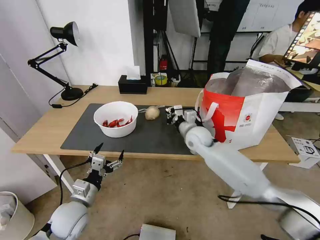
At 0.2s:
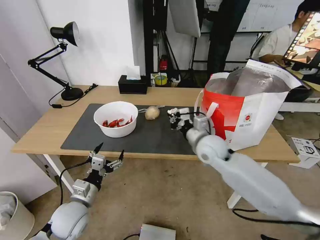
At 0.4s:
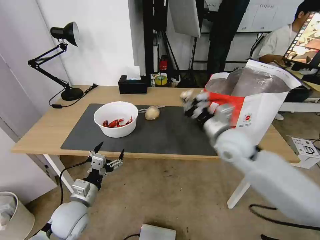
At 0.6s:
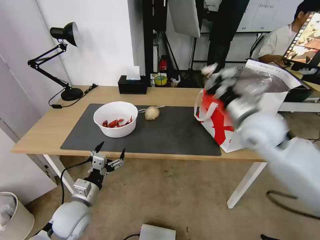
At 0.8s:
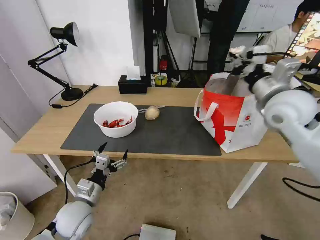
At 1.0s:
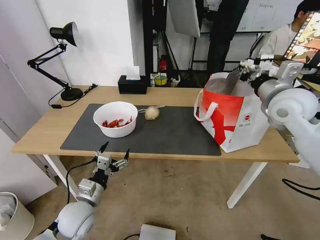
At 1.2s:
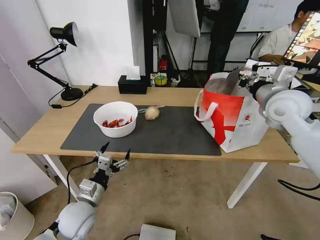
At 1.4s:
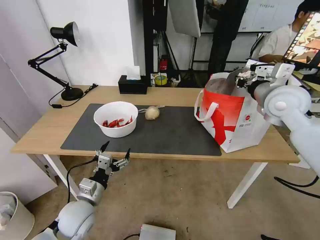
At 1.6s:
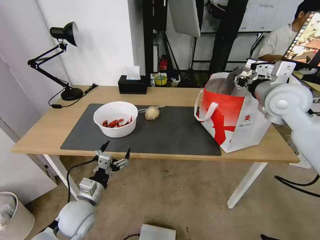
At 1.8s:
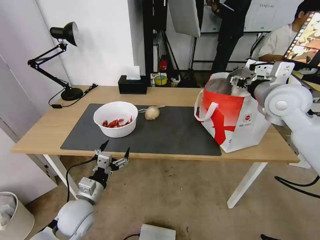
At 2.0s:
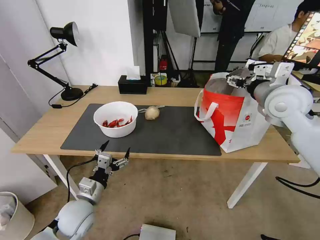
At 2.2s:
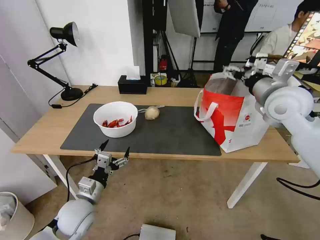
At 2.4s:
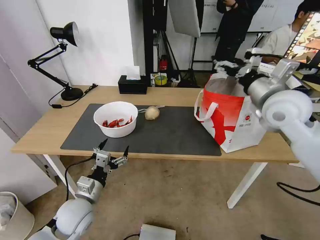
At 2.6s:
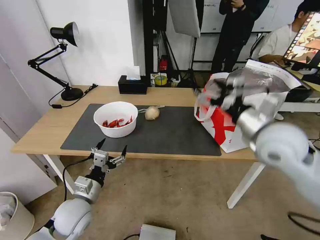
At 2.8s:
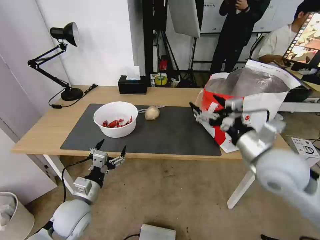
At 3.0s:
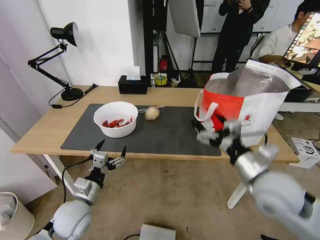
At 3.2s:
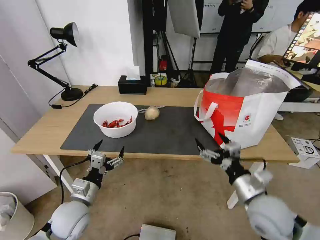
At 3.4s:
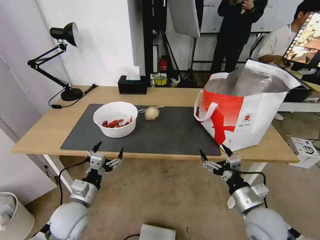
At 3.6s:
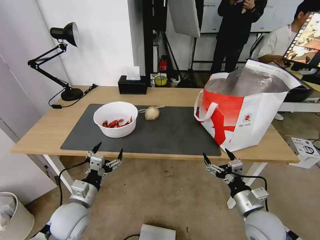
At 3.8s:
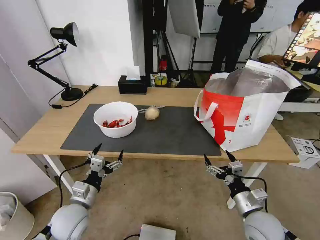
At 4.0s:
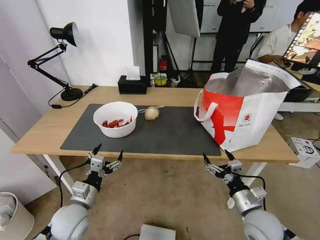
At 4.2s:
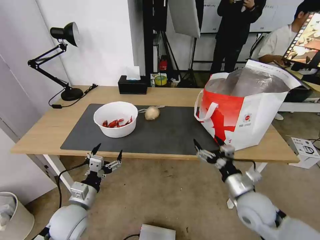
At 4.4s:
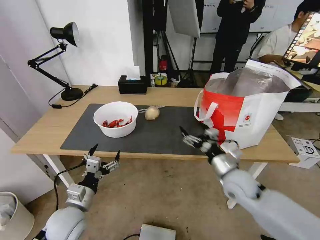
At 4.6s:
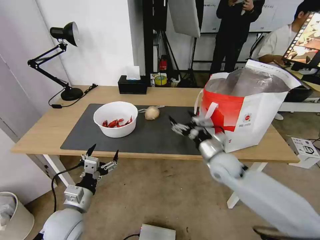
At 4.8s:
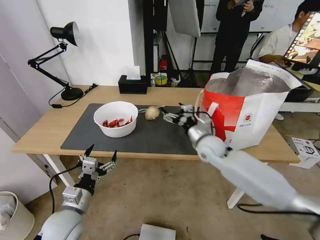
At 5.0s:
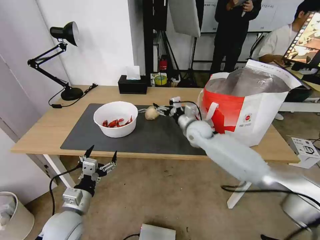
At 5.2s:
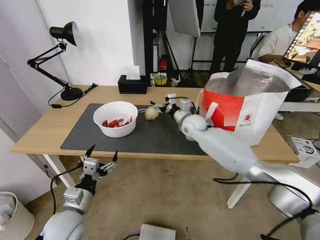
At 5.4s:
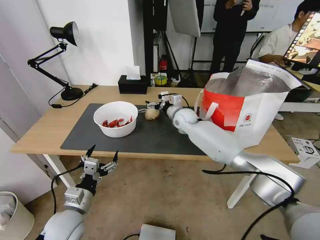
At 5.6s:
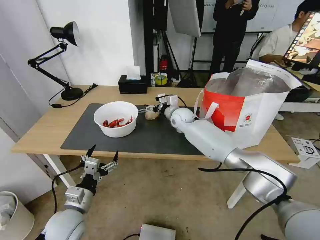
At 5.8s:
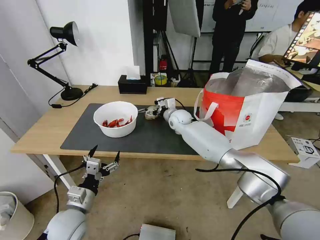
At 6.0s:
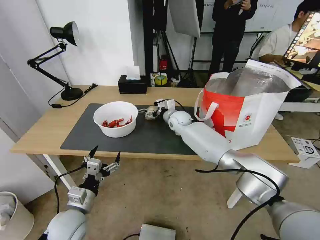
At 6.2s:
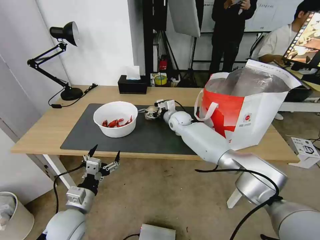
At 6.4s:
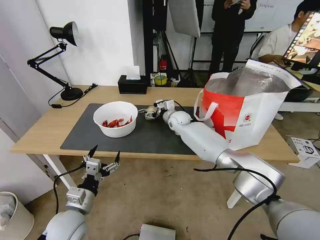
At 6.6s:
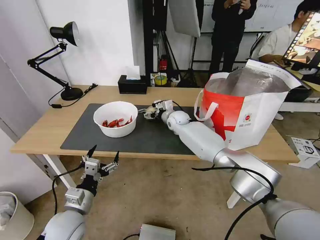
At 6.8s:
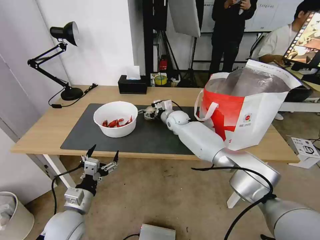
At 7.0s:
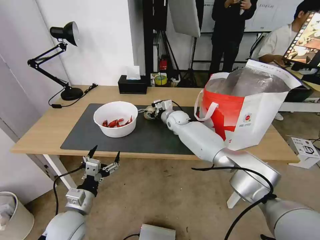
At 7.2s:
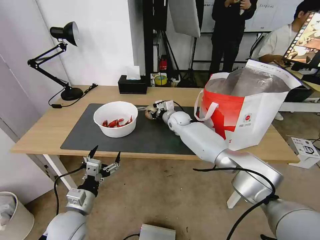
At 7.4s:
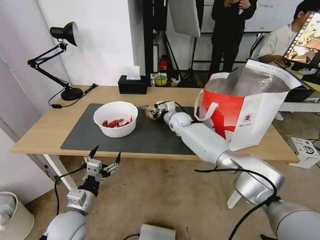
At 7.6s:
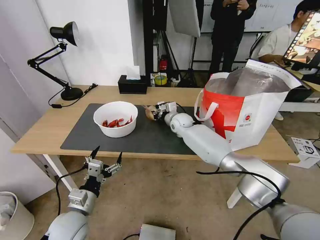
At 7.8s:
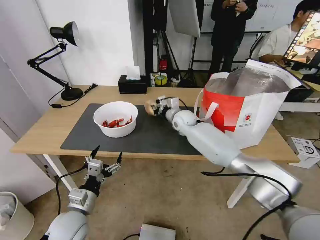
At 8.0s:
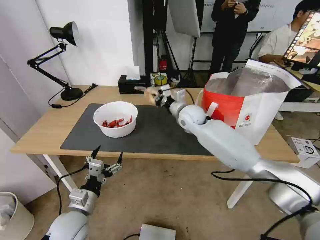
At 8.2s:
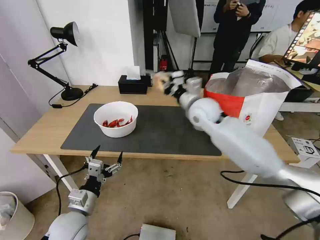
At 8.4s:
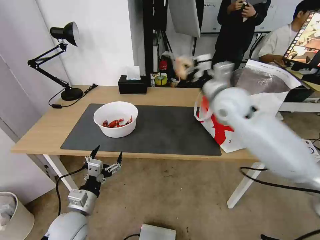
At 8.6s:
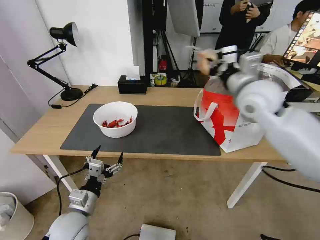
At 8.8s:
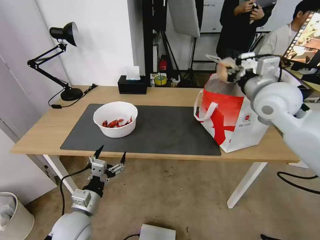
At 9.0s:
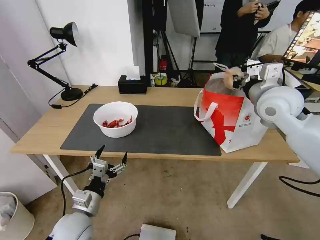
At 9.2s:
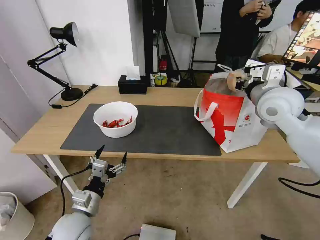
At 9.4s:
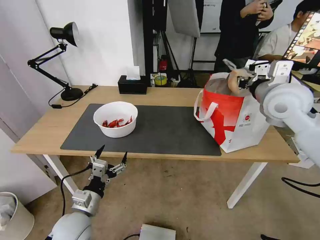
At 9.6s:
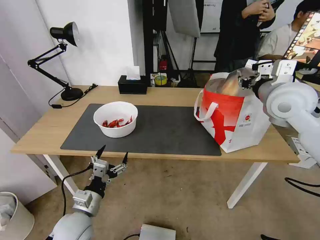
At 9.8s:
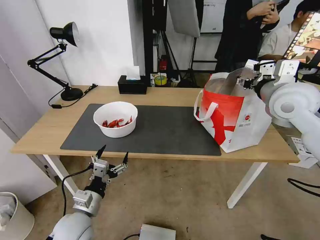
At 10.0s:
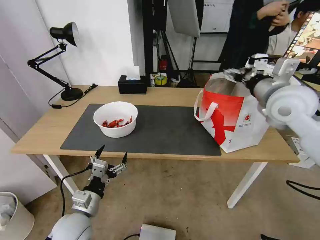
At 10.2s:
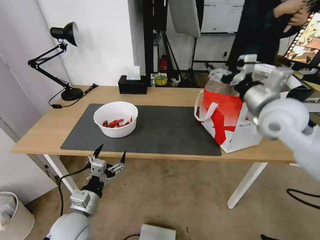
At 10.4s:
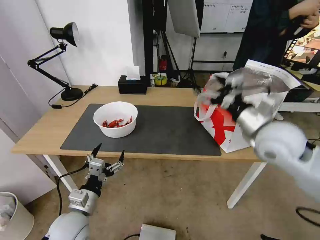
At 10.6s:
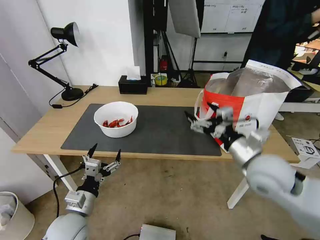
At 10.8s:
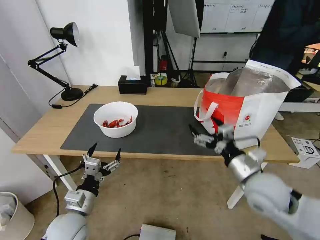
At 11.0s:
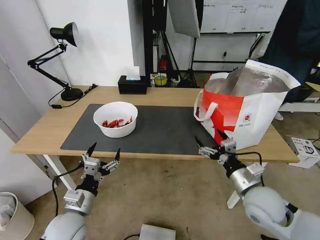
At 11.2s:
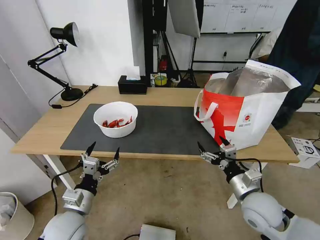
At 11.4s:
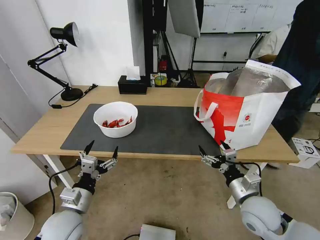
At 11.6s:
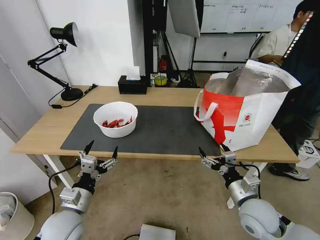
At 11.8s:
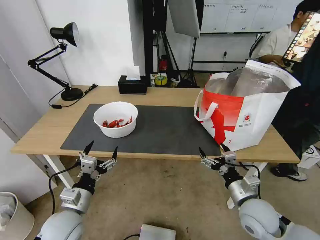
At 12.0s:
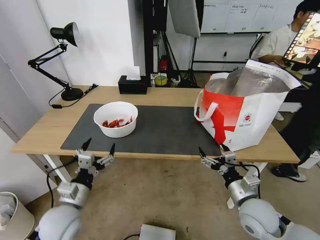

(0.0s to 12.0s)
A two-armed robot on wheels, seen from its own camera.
Task of the whole recording: Pick up the trash from the table and place it into the takeout bag.
0.0s - 1.6s: The right gripper moves upward and to the right, roughly 25 cm, and opens its fingers.
1.6s - 3.0s: The right gripper is displaced backward and downward by about 25 cm, and opens its fingers.
3.0s - 4.4s: The right gripper travels downward and forward by approximately 10 cm.
4.4s - 6.0s: The right gripper travels forward and to the left by roughly 35 cm.
6.0s - 7.6s: The right gripper closes its fingers.
7.6s - 9.0s: The right gripper travels upward, to the right and backward by approximately 35 cm.
9.0s - 10.4s: The right gripper goes some 10 cm backward, and opens up.
10.4s - 12.0s: The right gripper shifts some 25 cm downward and backward.

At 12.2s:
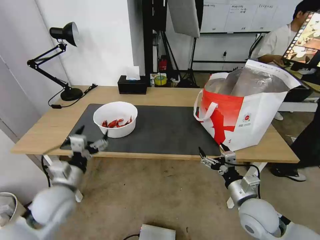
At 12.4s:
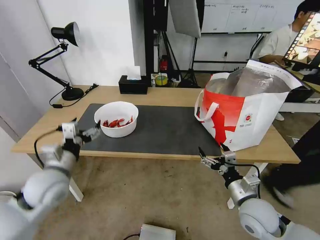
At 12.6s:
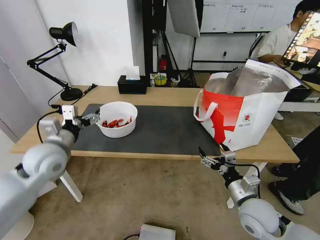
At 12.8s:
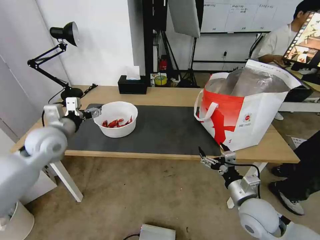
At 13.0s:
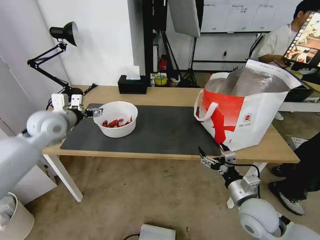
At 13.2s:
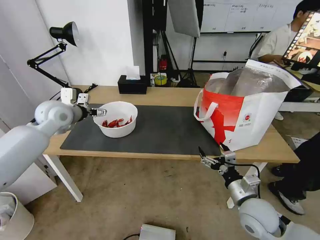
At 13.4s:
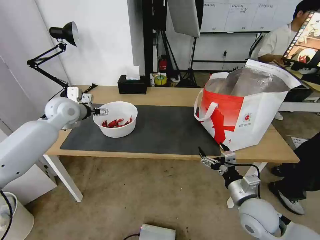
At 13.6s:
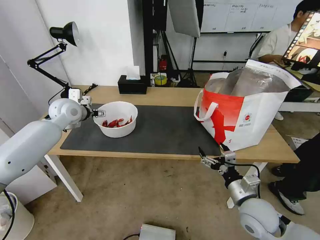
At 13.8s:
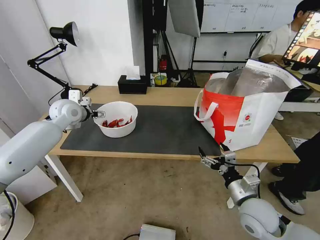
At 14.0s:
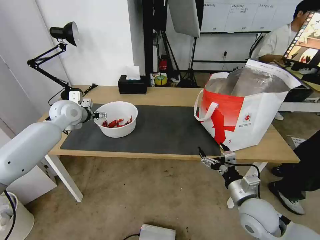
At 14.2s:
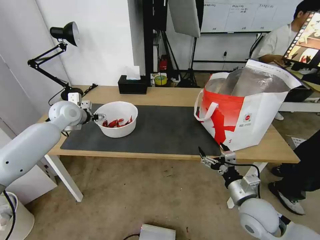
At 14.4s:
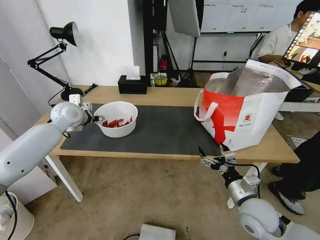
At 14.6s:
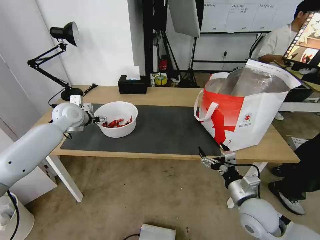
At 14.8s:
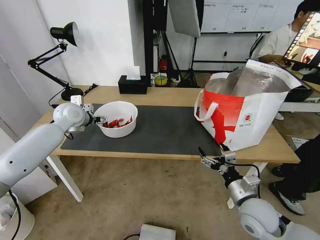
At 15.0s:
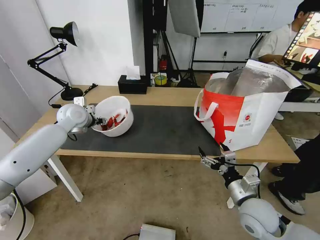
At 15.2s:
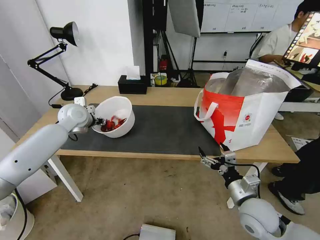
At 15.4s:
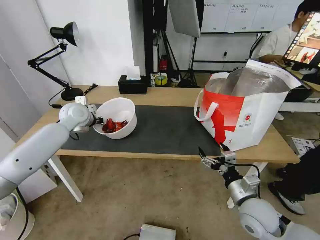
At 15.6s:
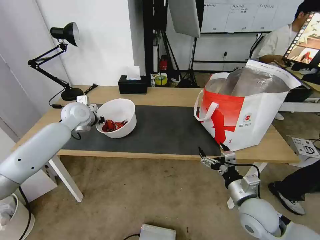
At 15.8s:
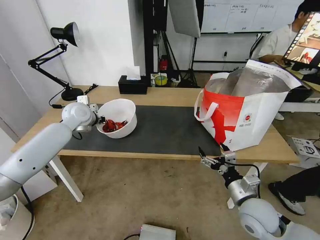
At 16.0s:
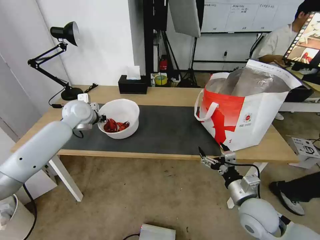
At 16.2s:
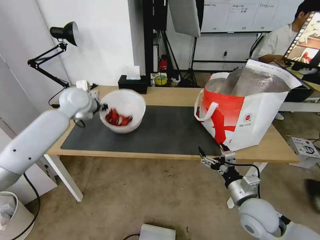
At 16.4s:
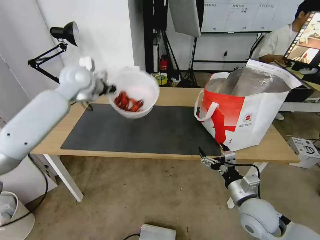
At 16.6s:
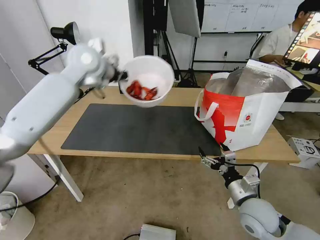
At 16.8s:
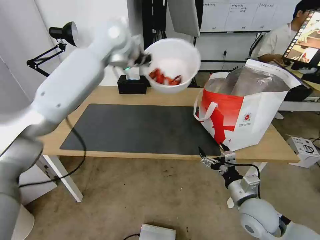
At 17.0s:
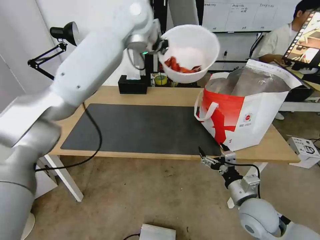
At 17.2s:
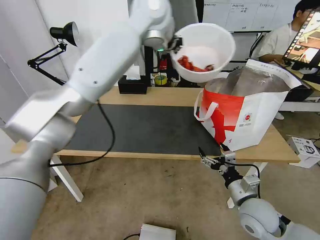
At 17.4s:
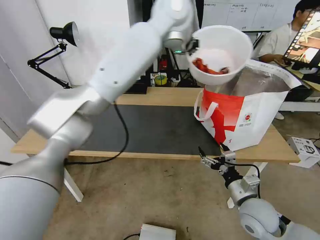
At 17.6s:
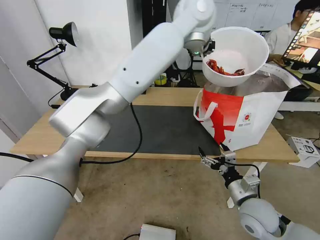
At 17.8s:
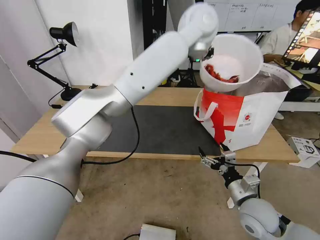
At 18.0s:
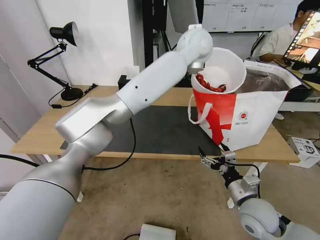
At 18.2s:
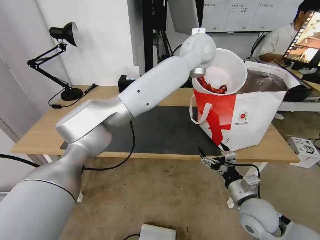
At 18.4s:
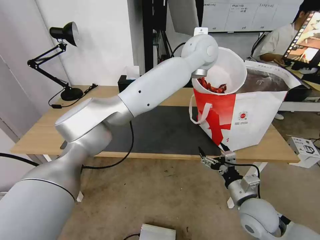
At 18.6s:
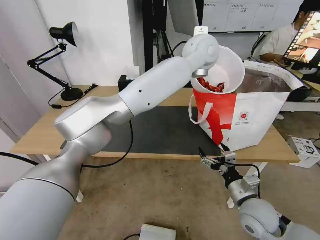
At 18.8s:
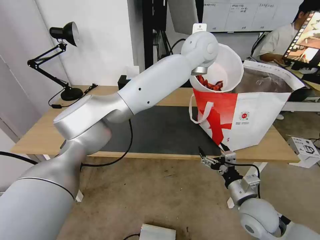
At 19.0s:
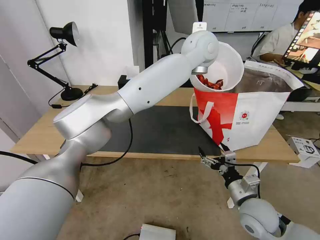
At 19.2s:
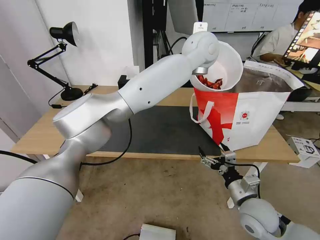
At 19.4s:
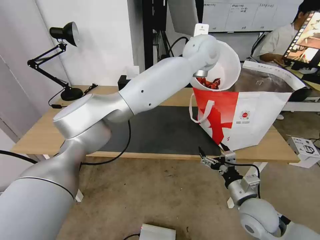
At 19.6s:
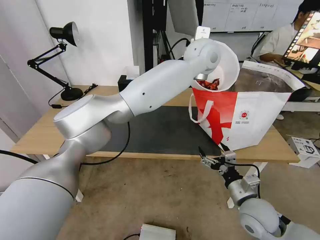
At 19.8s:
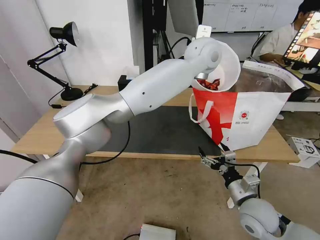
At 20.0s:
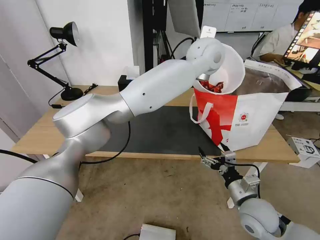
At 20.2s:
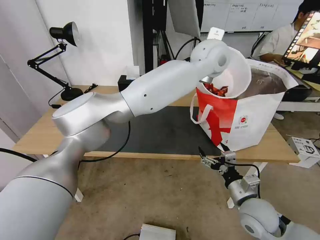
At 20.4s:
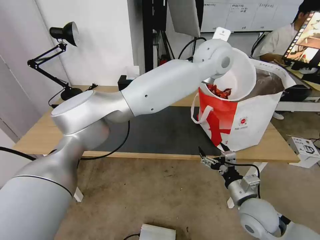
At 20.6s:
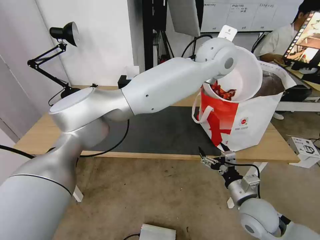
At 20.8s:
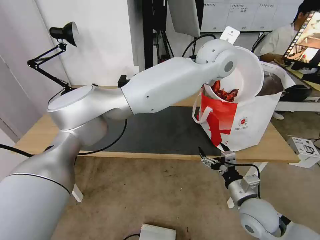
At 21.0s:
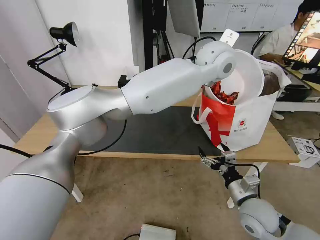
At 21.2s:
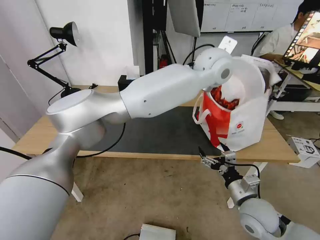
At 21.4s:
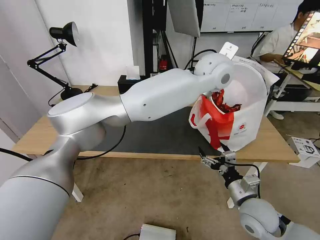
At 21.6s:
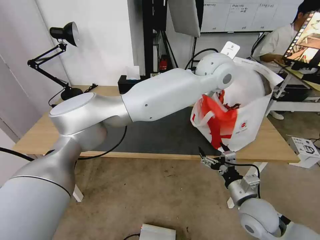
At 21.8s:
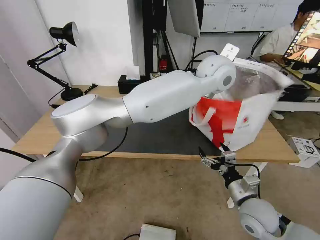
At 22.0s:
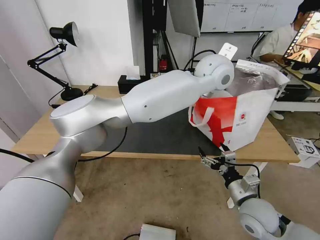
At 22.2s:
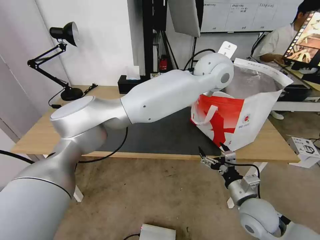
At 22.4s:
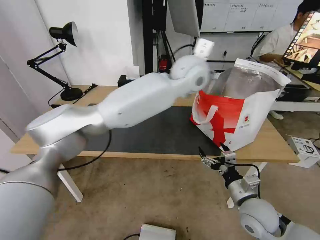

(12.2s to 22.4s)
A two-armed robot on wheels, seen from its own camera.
Task of the whole recording: Pick up the trash from the table and place it into the takeout bag.
12.2s - 13.6s: The left gripper moves forward and upward, some 30 cm.
13.6s - 15.2s: The left gripper closes its fingers.
15.2s - 16.6s: The left gripper goes roughly 25 cm upward and to the right, and closes.
16.6s - 18.0s: The left gripper heads to the right, covering approximately 25 cm.
18.0s - 19.4s: The grippers make only small movements.
21.0s - 22.4s: The left gripper opens up.
